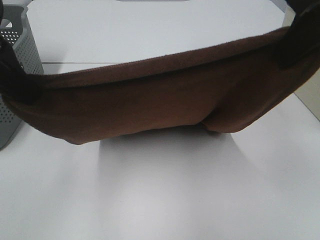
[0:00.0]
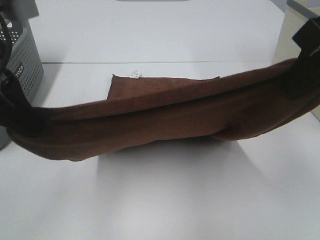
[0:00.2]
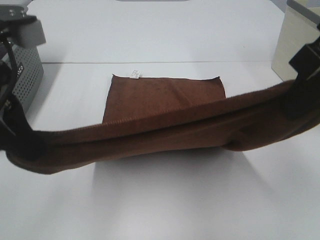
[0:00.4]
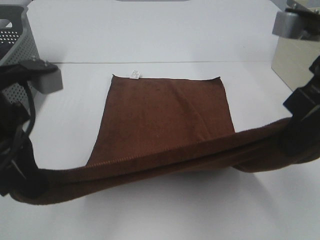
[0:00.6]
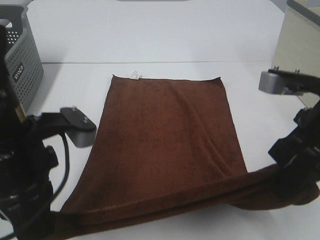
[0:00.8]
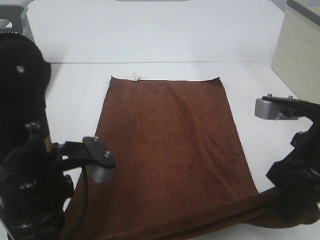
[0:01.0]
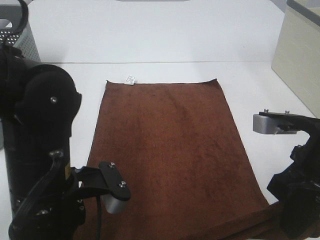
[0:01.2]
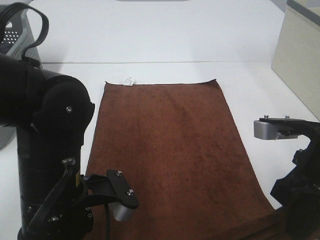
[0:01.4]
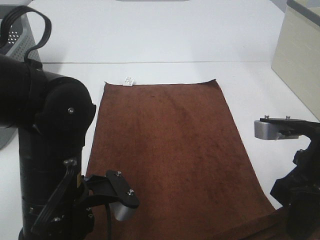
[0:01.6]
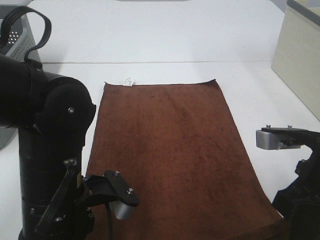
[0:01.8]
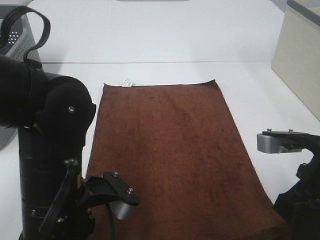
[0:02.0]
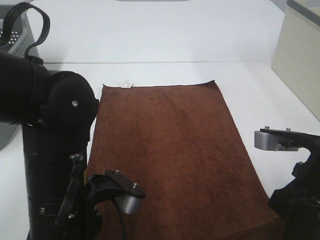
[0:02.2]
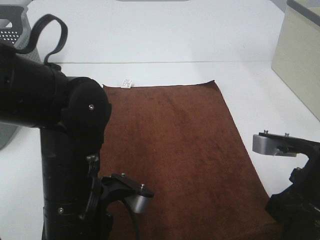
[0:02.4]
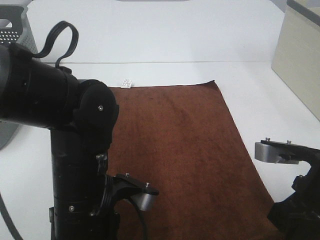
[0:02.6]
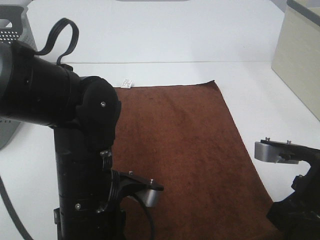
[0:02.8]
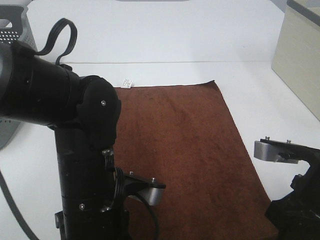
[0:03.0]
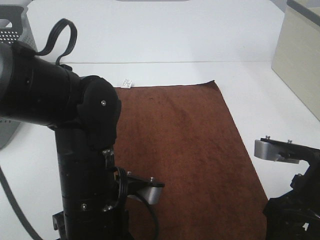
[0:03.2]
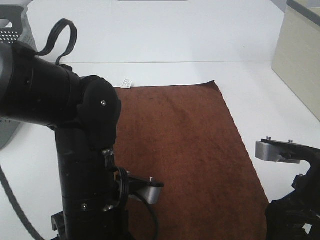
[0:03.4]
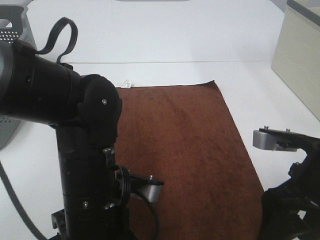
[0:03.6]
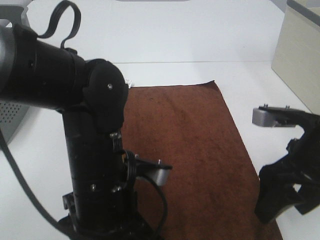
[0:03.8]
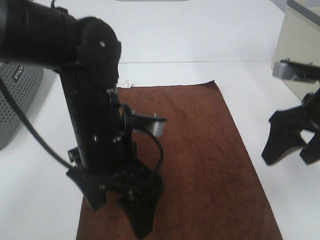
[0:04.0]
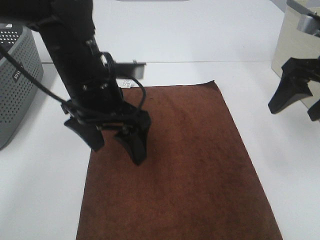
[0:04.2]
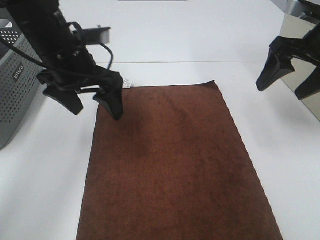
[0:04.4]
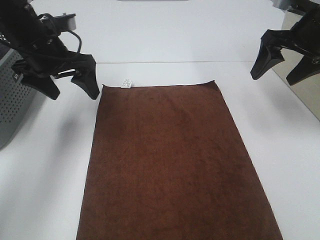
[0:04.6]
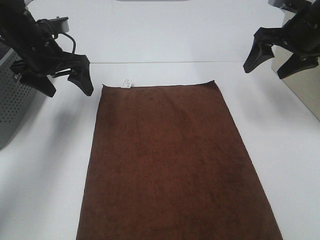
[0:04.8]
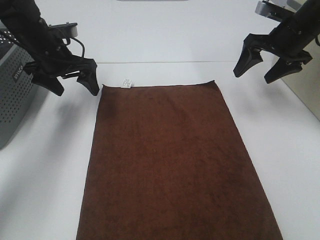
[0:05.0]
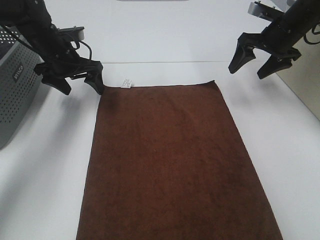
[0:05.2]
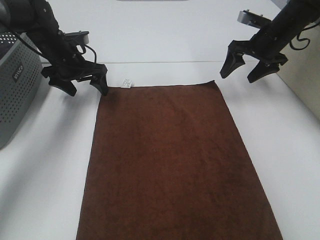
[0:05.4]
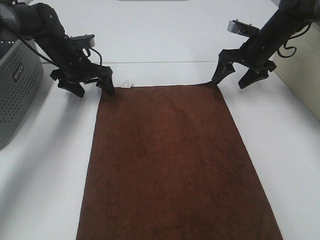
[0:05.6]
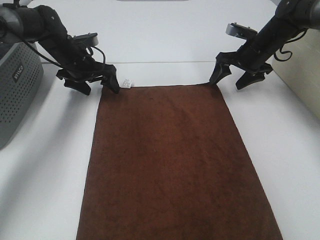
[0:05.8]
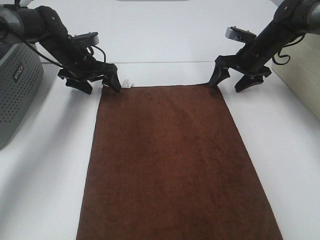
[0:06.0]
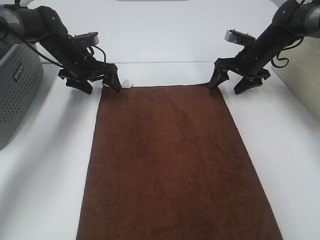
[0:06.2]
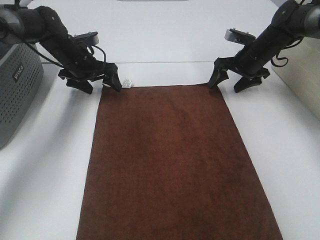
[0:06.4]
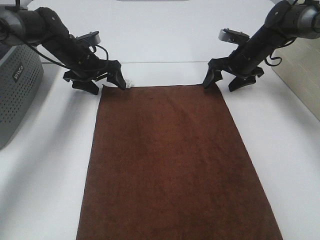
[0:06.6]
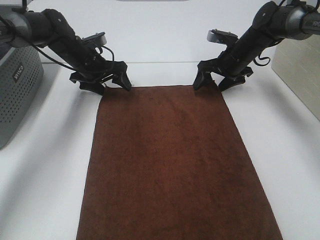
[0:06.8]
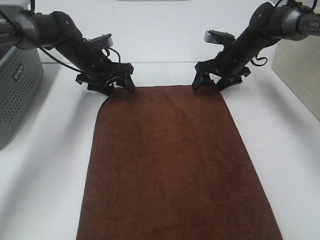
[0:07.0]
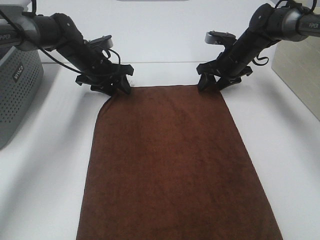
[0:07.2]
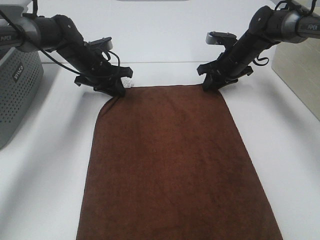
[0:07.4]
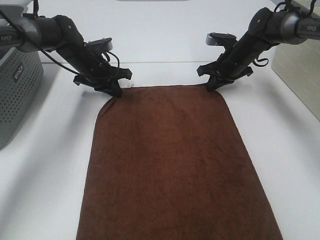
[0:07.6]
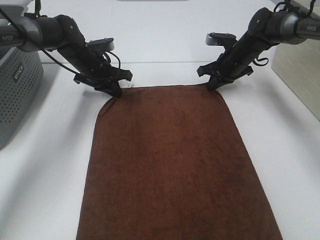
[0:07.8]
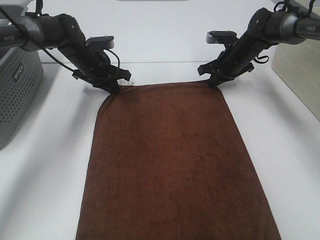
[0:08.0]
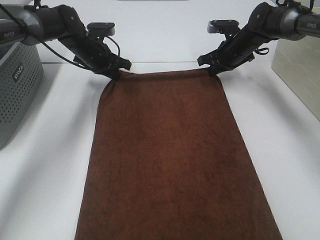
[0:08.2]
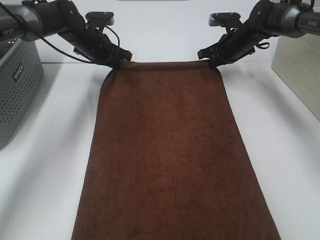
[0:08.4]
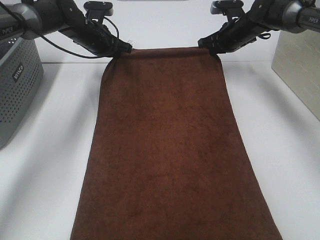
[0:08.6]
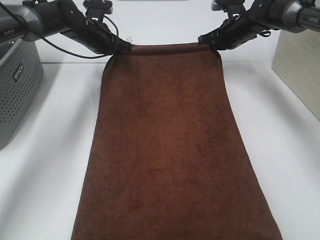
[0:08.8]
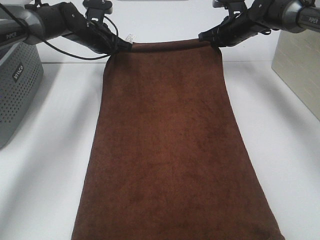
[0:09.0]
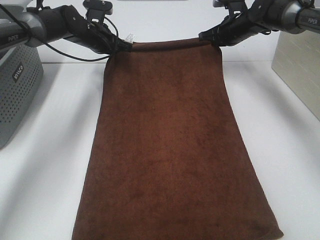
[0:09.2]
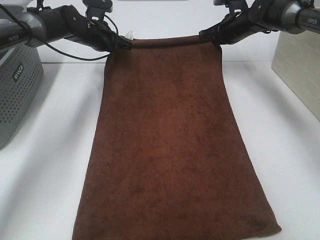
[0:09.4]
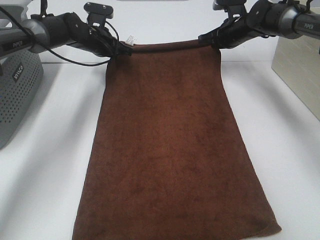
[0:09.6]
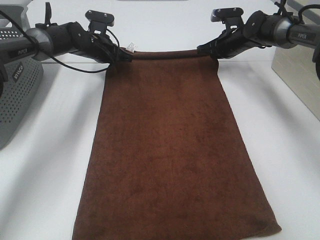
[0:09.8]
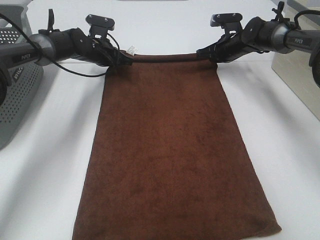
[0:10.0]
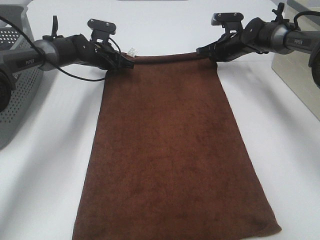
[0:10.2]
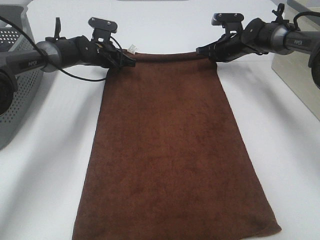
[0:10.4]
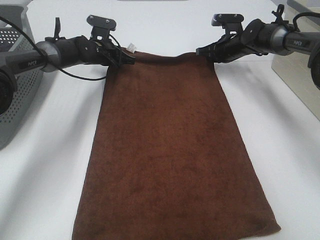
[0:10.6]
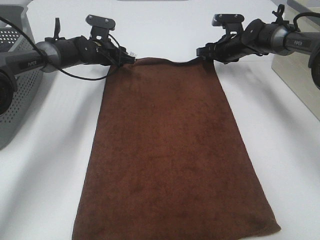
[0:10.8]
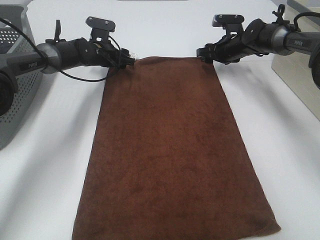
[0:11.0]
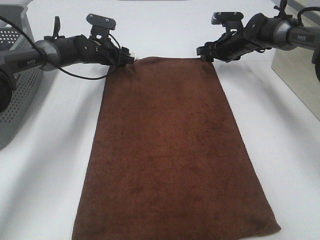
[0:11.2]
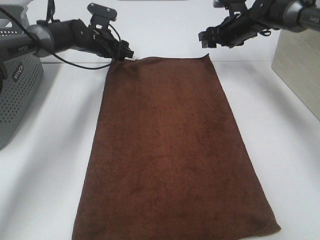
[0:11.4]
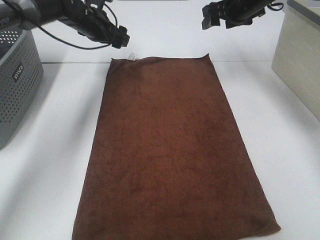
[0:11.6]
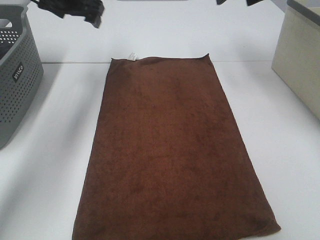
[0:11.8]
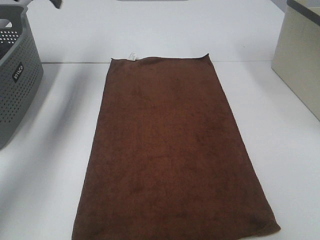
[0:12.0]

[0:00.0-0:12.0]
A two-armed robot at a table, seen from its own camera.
Task of the whole recording: Remove the towel and place it.
Step, 0:00.0 to 0:05.2: Left hand:adjust the brown towel.
Step, 0:00.0 to 0:05.2: Right hand:adjust the brown towel.
0:00.0 to 0:01.6: The left gripper travels downward and to the right by approximately 20 cm. Meanwhile the right gripper goes about 20 cm downward.
0:01.6 to 0:03.0: The right gripper opens its fingers.
0:03.0 to 0:04.4: The left gripper goes approximately 20 cm forward, to the left and upward, and opens; the right gripper moves forward and upward, roughly 20 cm, and opens up.
0:04.4 to 0:06.0: Both grippers move forward and downward, some 20 cm.
0:06.0 to 0:07.6: The right gripper closes its fingers; the left gripper closes its fingers.
0:07.6 to 0:09.0: The right gripper goes some 5 cm upward, while the left gripper shifts about 5 cm forward.
0:09.0 to 0:10.4: The two grippers go about 5 cm downward.
0:10.4 to 0:12.0: The right gripper is displaced upward by roughly 25 cm, and opens its fingers; the left gripper travels upward and to the left by roughly 25 cm, and opens up.

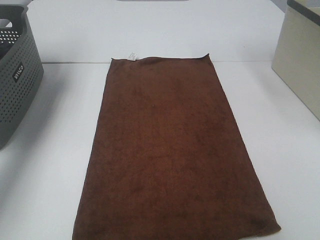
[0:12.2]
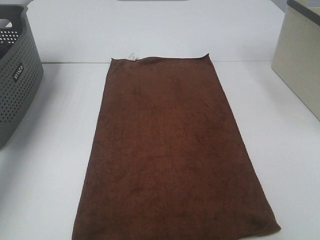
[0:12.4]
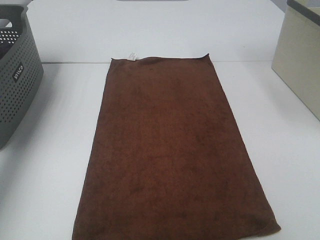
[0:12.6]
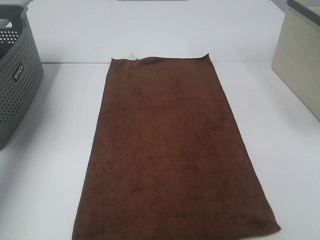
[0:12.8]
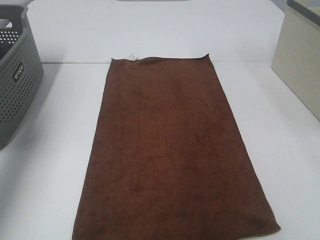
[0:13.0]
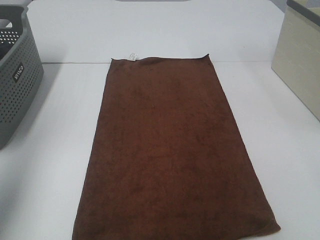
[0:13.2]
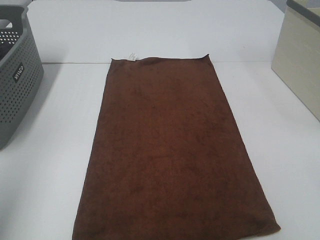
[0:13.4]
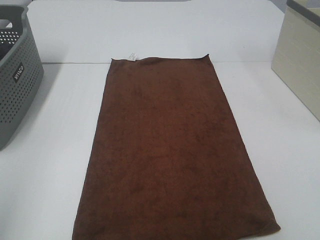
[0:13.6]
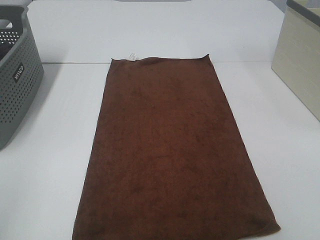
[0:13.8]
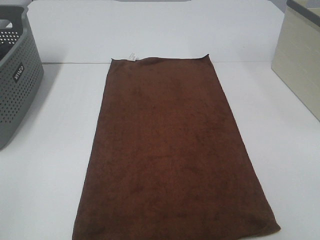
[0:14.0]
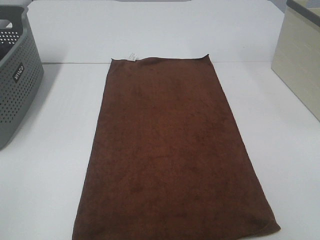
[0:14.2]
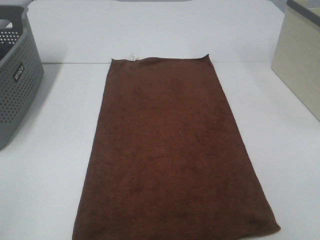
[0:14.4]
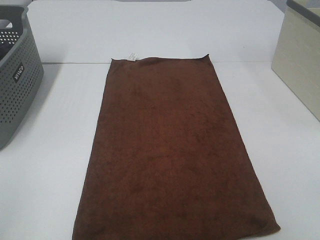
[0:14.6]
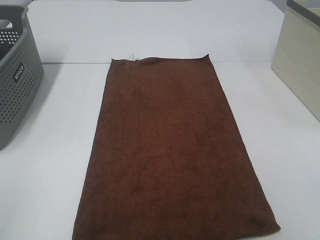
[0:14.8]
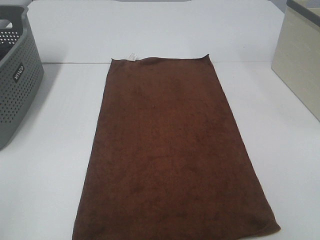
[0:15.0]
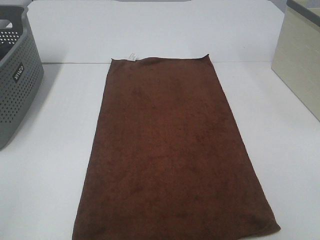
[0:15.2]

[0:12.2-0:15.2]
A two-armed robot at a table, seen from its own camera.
Task of the whole recording: Remove the towel and place it.
0:12.2 to 0:13.8: The left gripper goes some 50 cm backward.

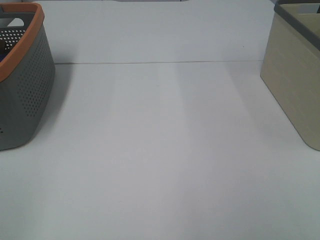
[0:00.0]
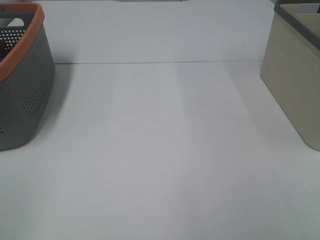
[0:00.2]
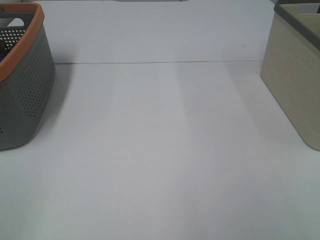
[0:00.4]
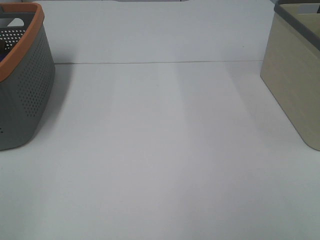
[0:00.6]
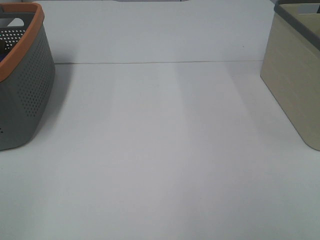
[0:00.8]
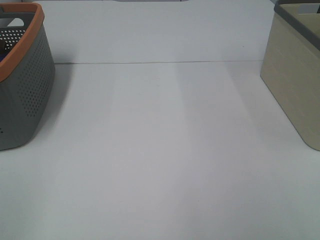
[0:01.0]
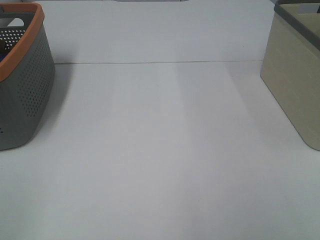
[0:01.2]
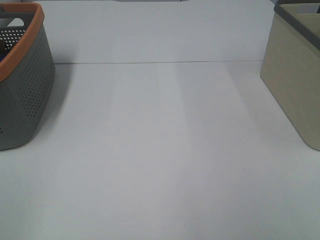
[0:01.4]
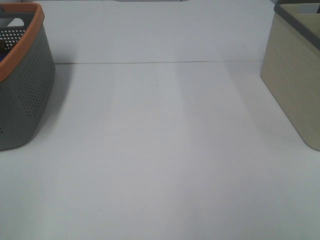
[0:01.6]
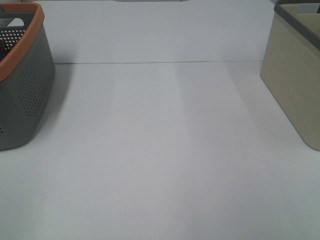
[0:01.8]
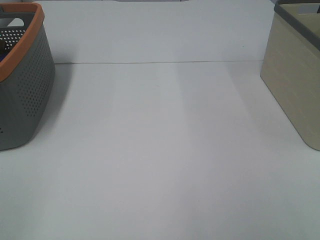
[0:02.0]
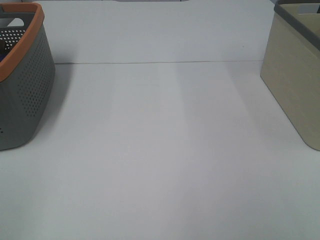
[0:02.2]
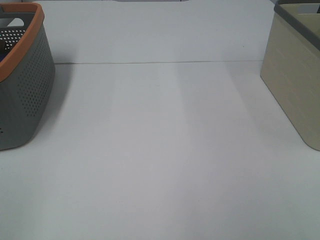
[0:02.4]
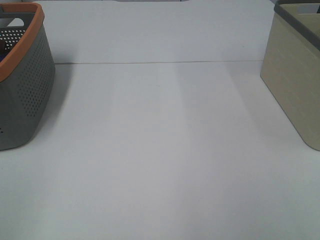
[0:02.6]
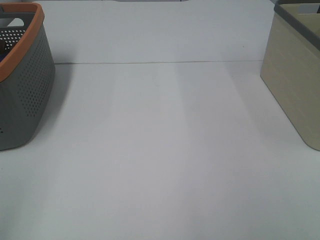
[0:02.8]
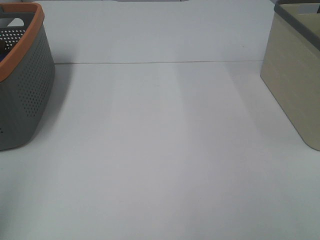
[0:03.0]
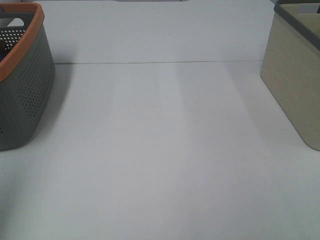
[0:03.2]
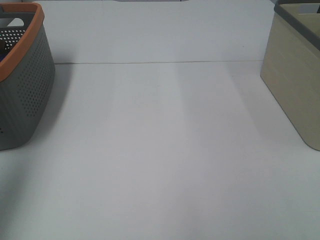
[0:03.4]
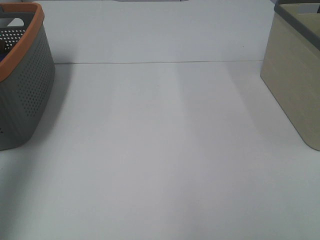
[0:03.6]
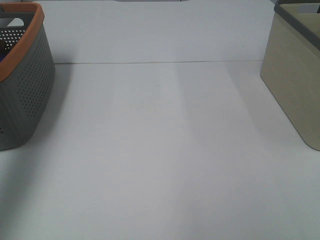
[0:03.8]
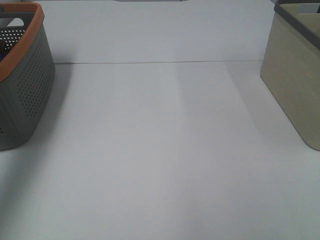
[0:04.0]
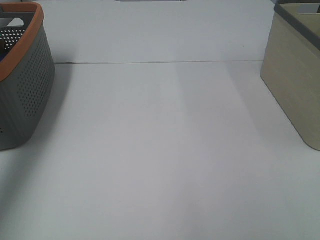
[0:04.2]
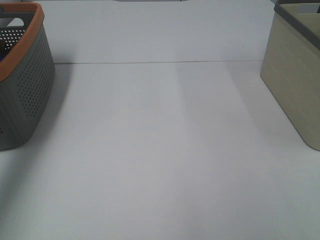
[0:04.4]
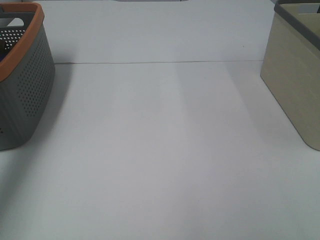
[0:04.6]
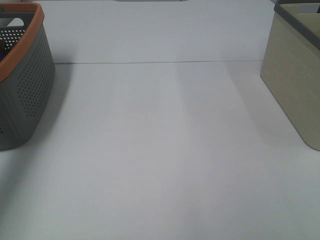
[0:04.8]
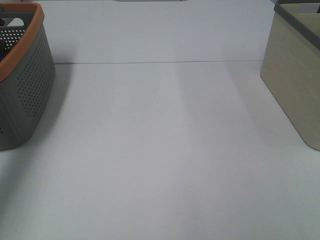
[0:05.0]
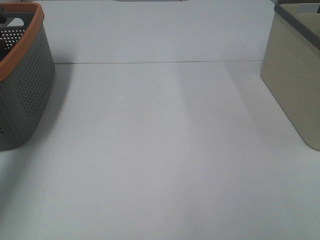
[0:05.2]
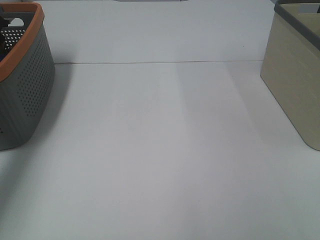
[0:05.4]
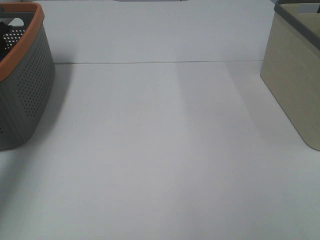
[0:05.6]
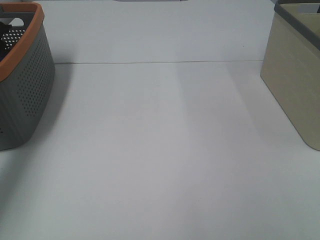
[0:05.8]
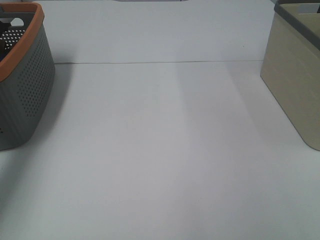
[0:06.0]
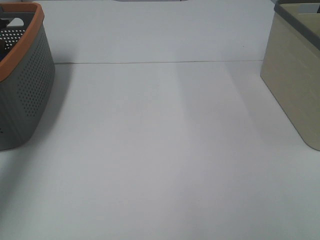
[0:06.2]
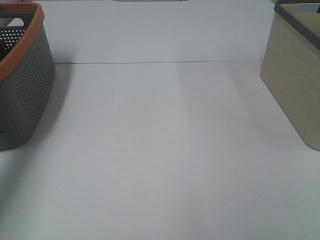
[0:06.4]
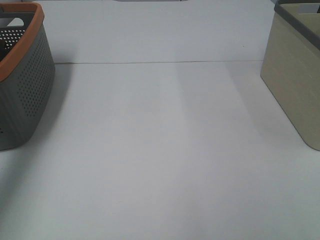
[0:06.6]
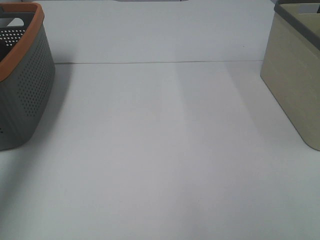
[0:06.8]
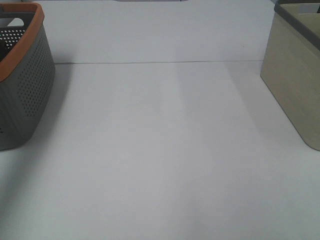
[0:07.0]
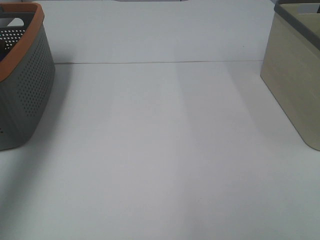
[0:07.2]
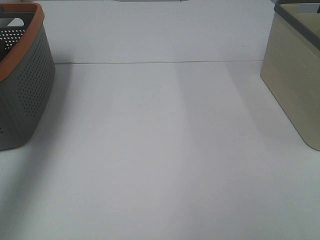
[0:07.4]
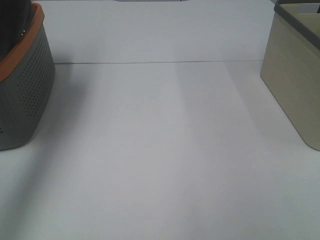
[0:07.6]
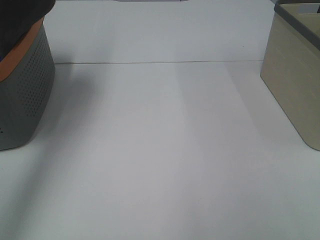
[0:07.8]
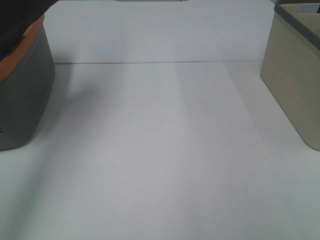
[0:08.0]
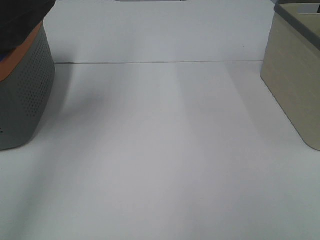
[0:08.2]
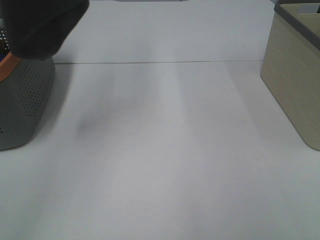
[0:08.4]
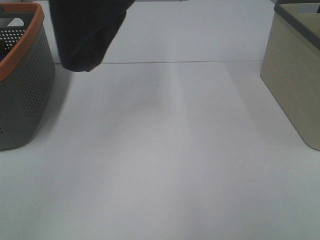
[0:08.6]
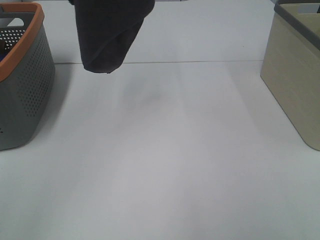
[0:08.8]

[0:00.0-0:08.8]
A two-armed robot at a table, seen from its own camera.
Task of the whole recording: Remove the towel and place it.
0:00.0 to 0:01.4: Both grippers stay about where they are.
0:03.0 to 0:04.4: The left gripper heads forward, covering about 35 cm.
0:05.8 to 0:07.4: The left gripper shifts approximately 30 cm upward, and closes.
0:07.4 to 0:08.8: The left gripper heads to the right, covering about 15 cm.
